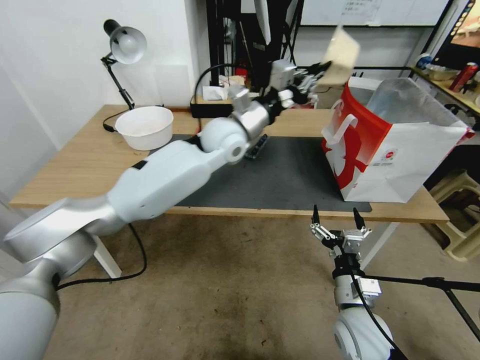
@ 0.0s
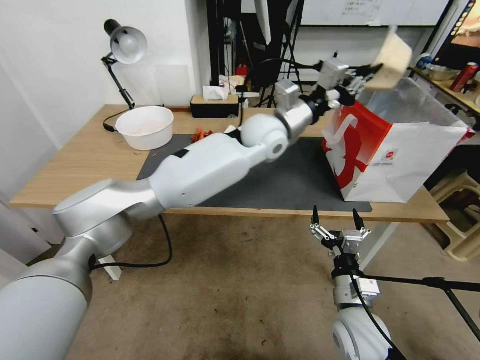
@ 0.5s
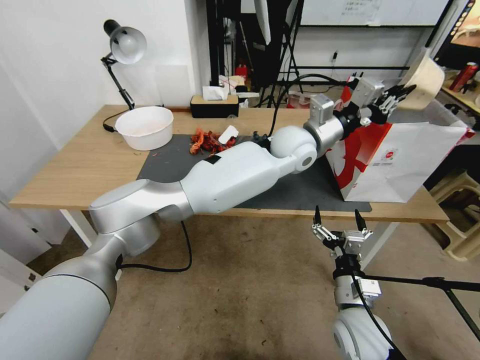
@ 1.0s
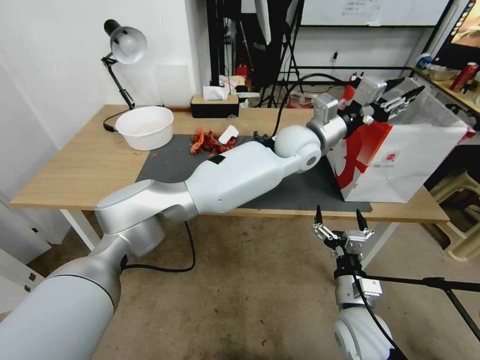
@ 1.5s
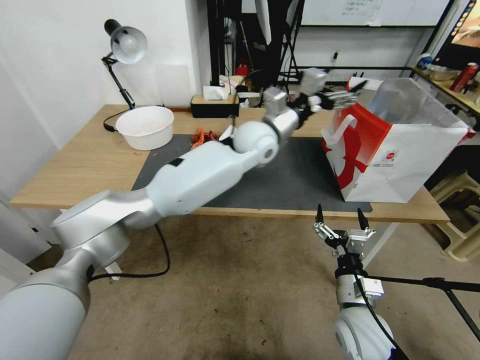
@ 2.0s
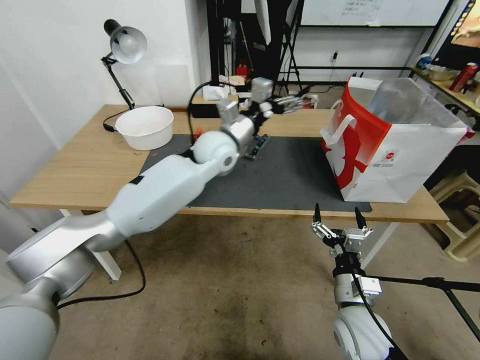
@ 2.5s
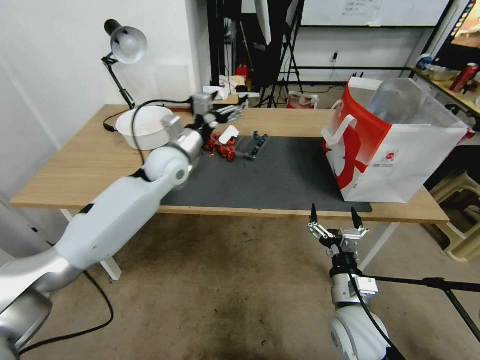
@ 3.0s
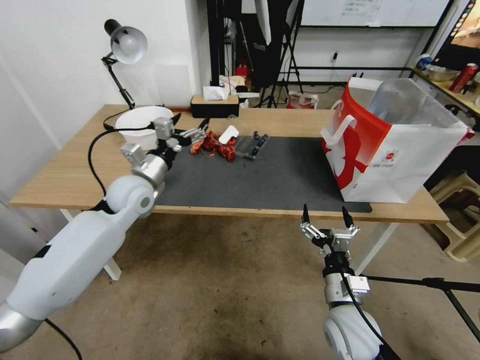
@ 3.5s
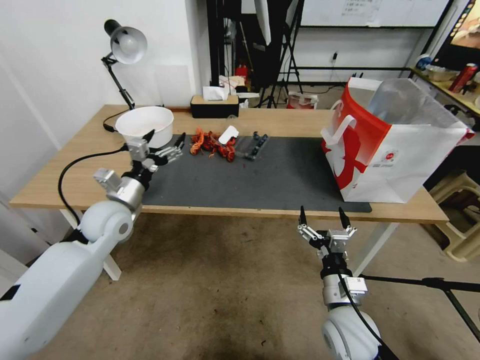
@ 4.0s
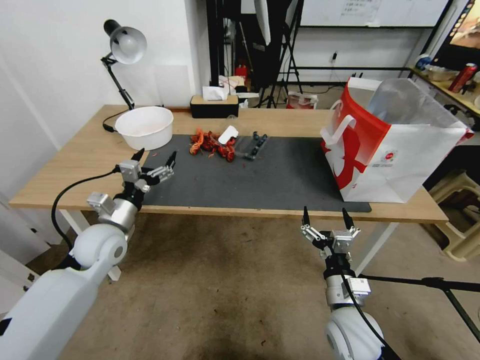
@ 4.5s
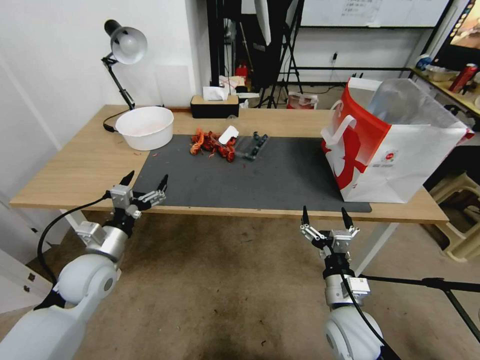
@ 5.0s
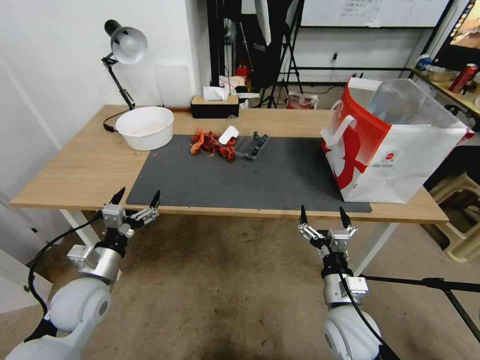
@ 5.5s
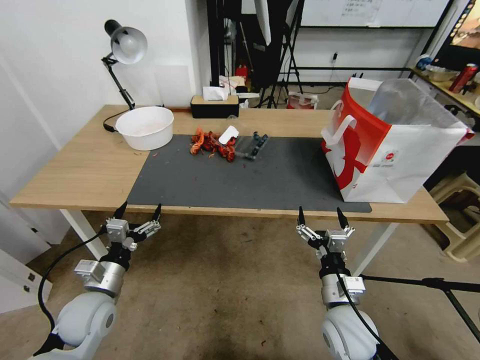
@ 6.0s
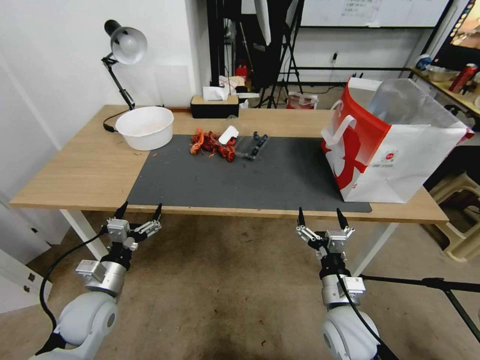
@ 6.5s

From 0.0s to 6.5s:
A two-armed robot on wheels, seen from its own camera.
From 0.0s to 2.0s: The left gripper shifts approximately 5 cm to the right, and opens its fingers.
From 2.0s to 4.5s: The left gripper goes some 40 cm to the left, backward and downward.
From 4.5s to 6.5s: The left gripper is displaced backward and downward by roughly 15 cm.
